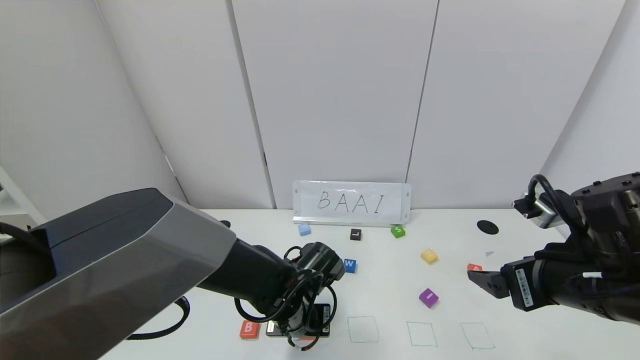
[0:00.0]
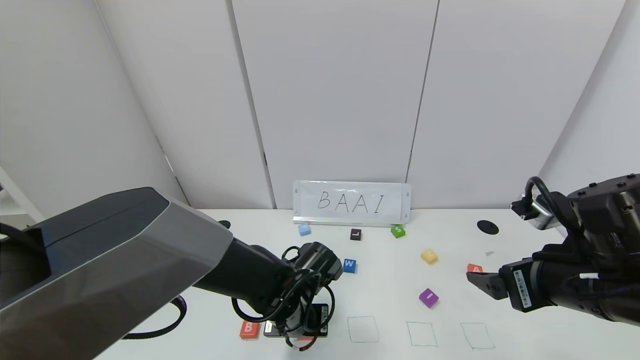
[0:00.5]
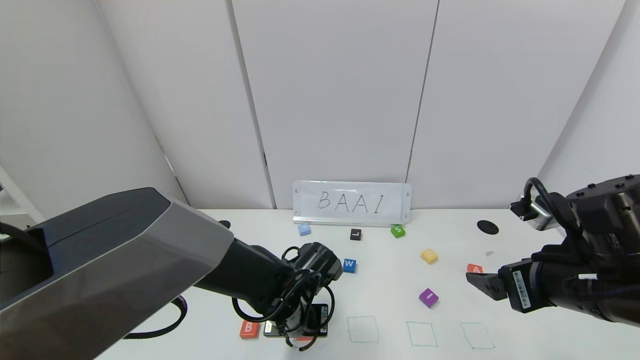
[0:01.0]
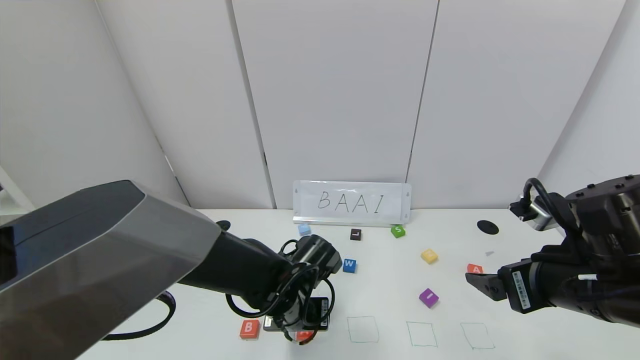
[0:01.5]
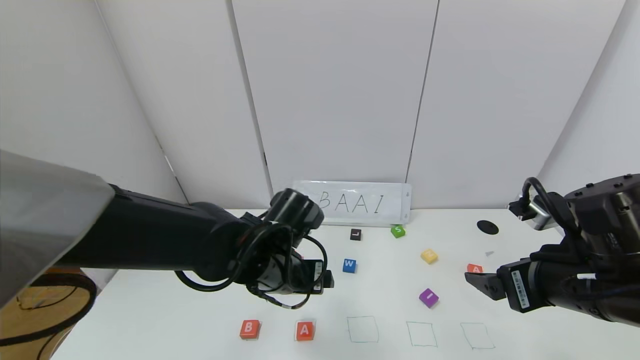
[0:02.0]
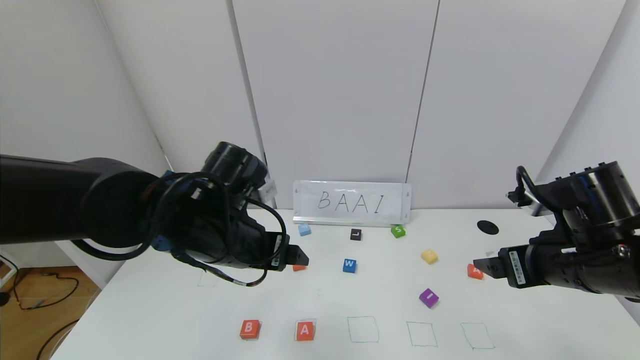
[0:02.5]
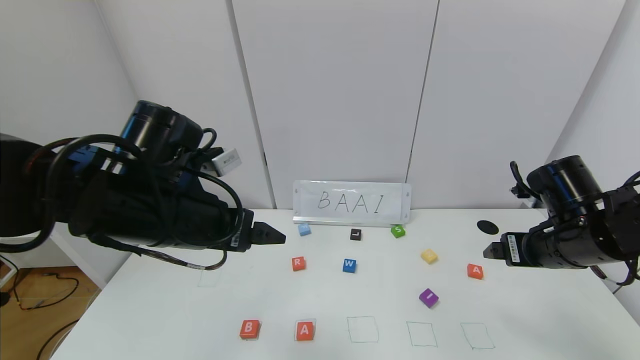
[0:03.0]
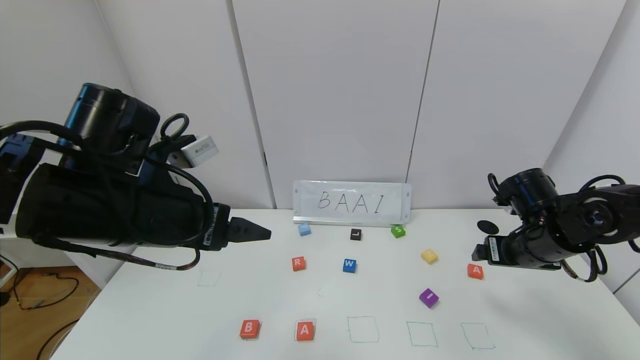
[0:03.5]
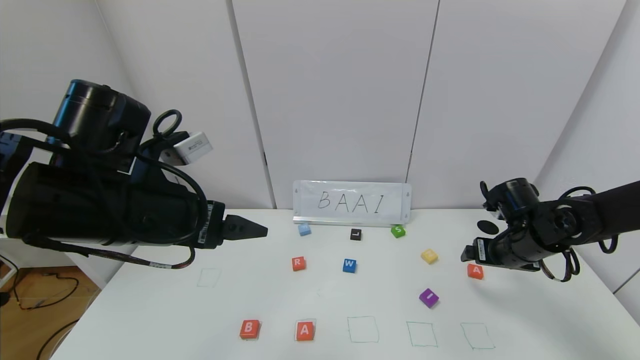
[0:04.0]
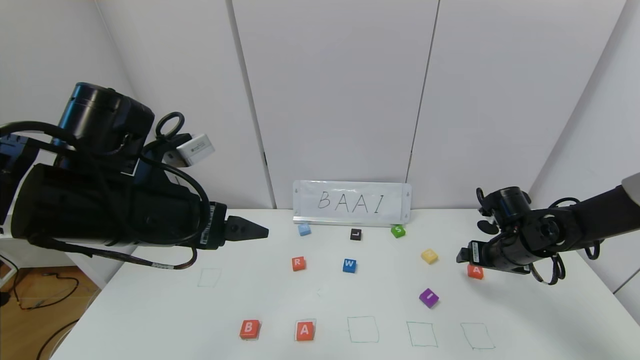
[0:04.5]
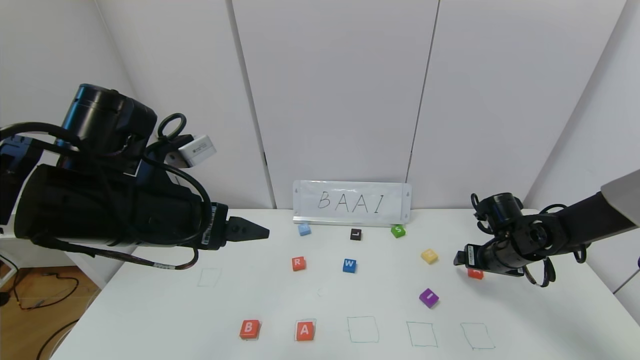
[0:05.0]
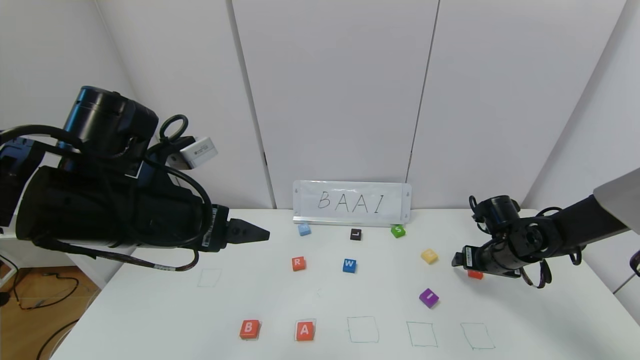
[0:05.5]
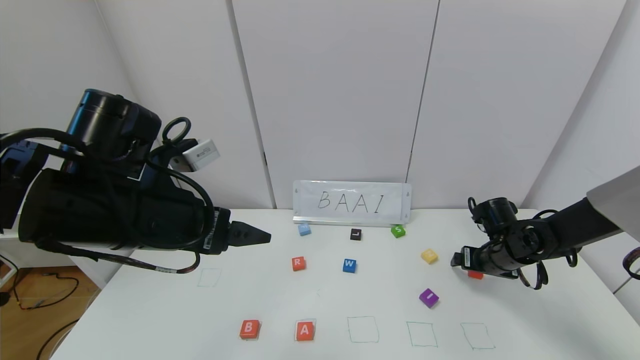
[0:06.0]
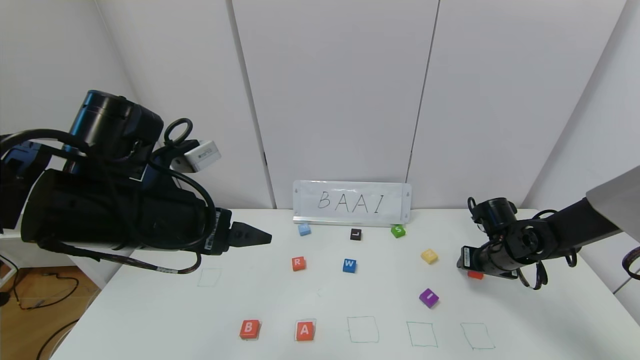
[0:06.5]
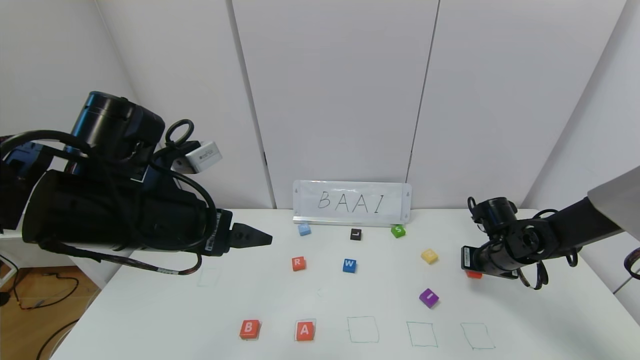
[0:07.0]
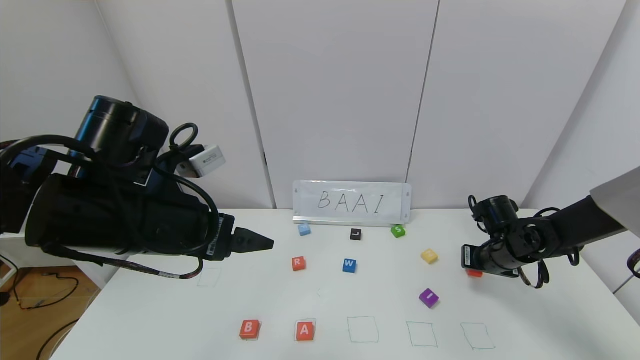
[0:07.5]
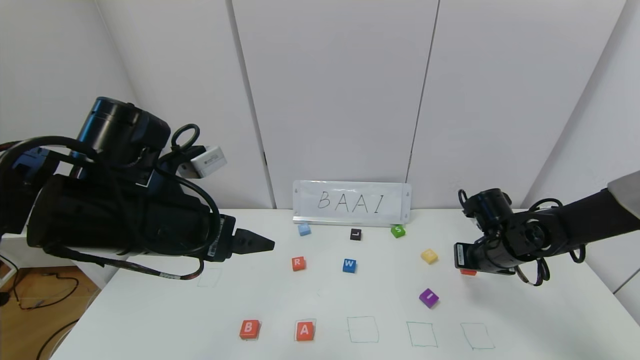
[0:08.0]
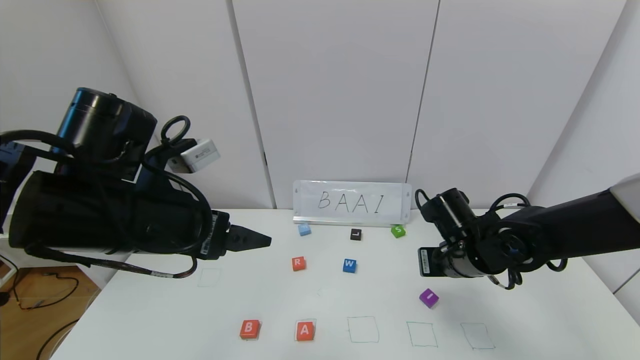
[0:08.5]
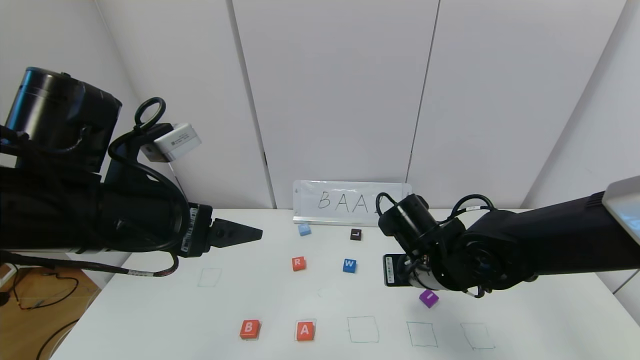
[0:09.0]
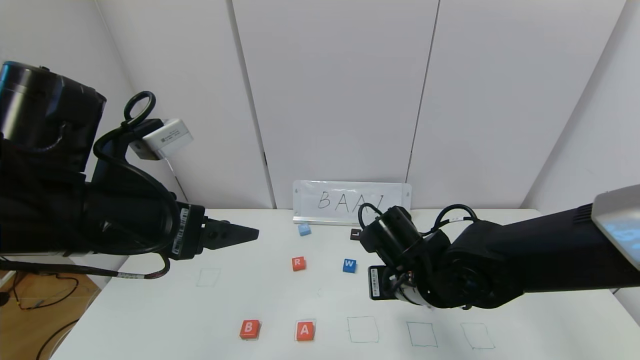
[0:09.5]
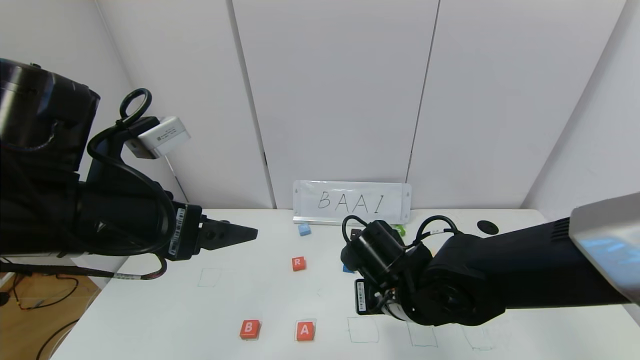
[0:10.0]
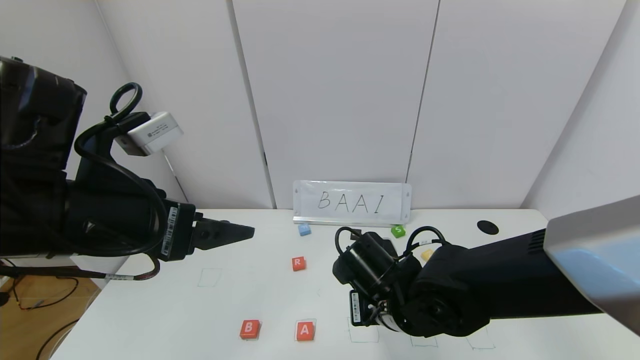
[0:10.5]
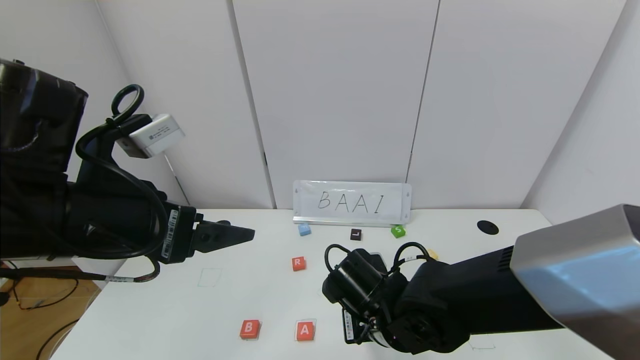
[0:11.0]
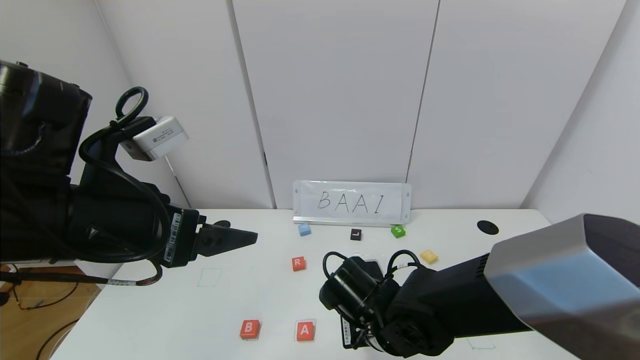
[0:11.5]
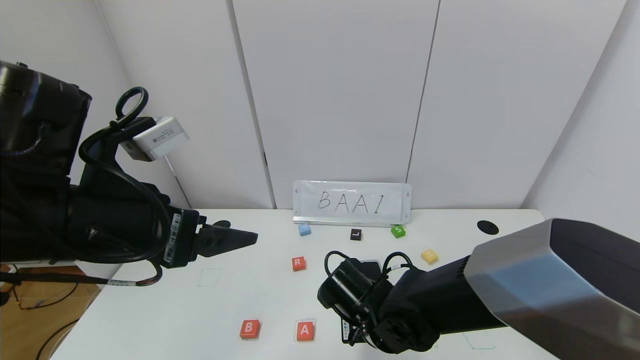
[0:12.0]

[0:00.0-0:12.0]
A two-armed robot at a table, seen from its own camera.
Task of the whole recording: use the gripper to find blocks with the letters b, a, a, and i on the table and arrange them into BAAI, then find r and N and turn the arranged baai into brian.
0:00.0 to 0:02.0: The left gripper goes some 10 cm upward, and opens up.
0:02.0 to 0:04.0: The right gripper travels forward and downward by approximately 20 cm. Meanwhile the left gripper goes some 15 cm upward and to the left.
0:04.0 to 0:06.0: The right gripper moves downward, approximately 5 cm.
0:06.0 to 0:08.0: The right gripper ends up roughly 5 cm from where it was, and closes its fingers.
0:08.0 to 0:10.0: The right gripper heads to the left and backward, covering some 20 cm.
0:10.0 to 0:12.0: The right gripper goes some 5 cm downward.

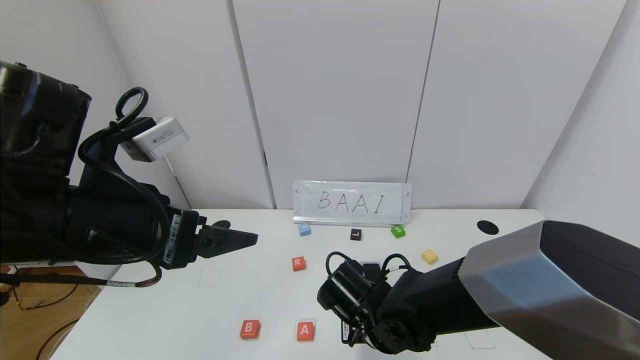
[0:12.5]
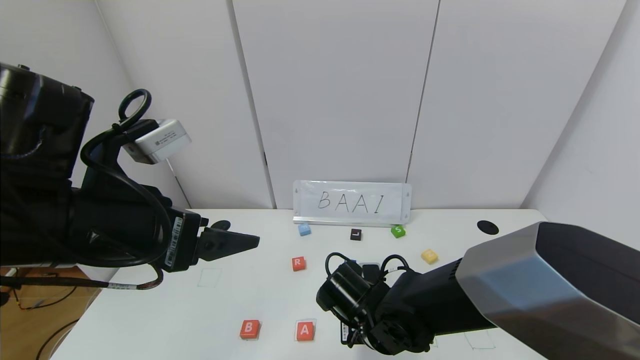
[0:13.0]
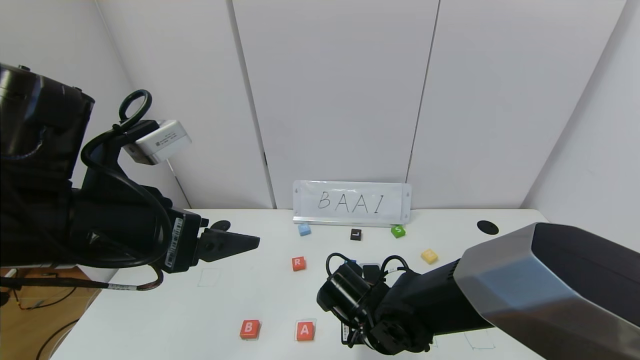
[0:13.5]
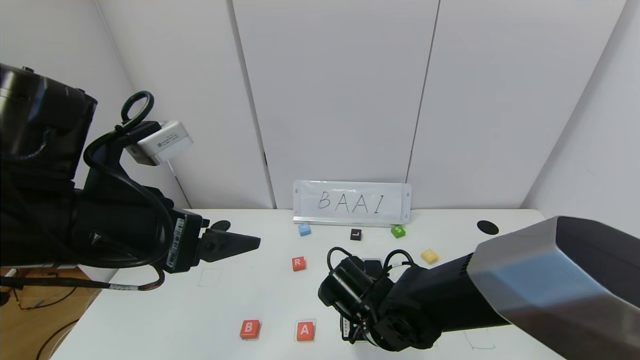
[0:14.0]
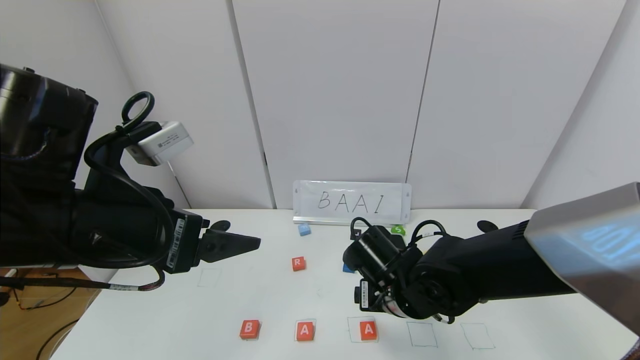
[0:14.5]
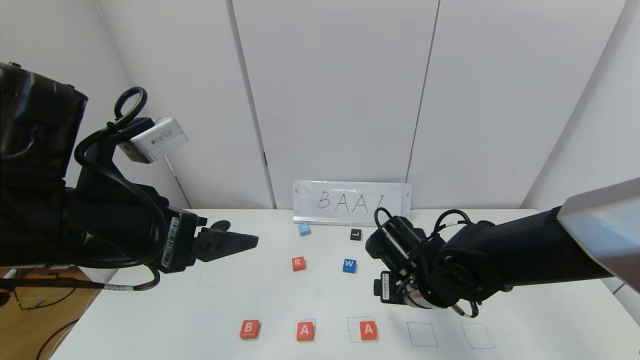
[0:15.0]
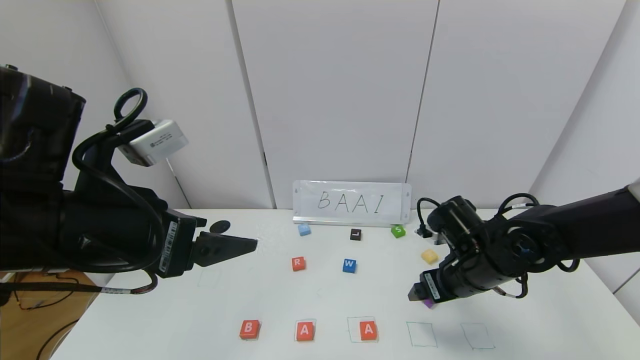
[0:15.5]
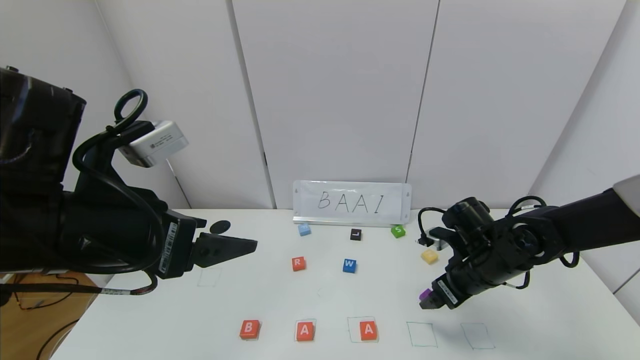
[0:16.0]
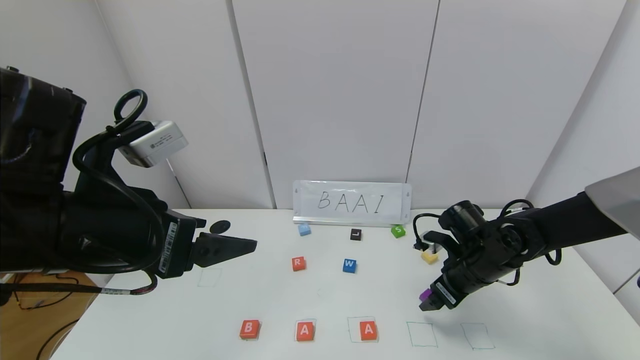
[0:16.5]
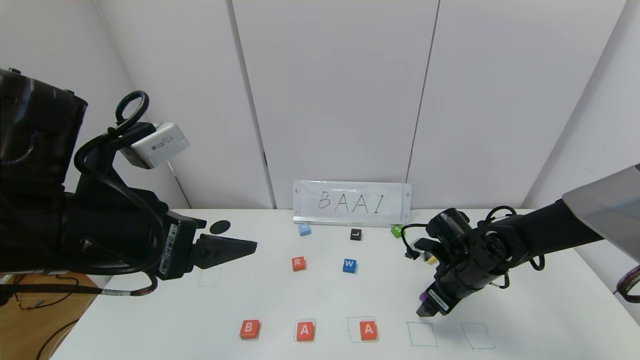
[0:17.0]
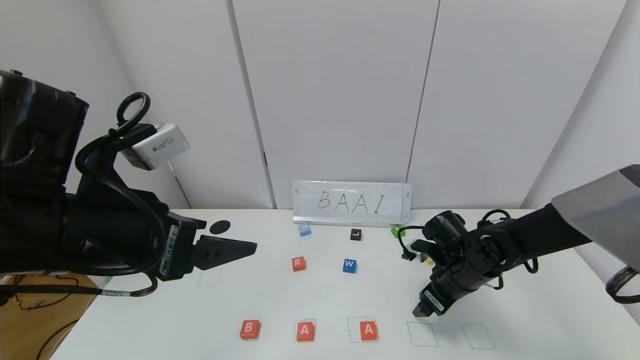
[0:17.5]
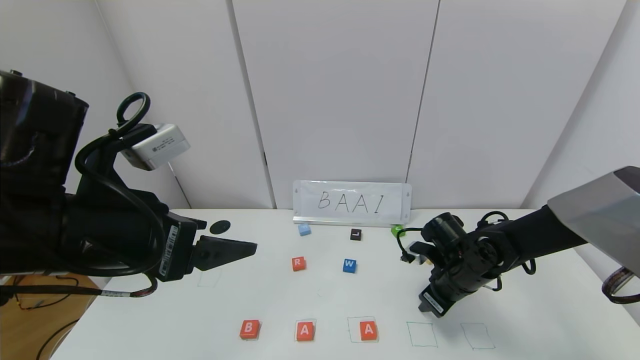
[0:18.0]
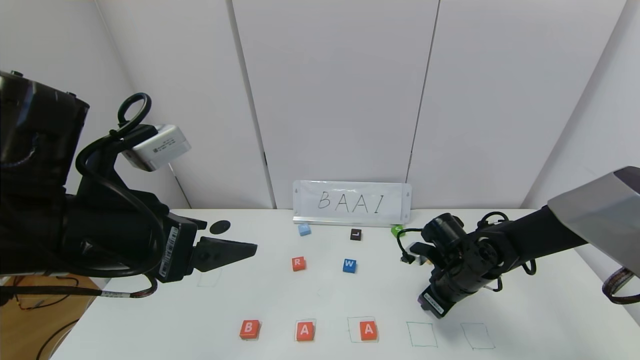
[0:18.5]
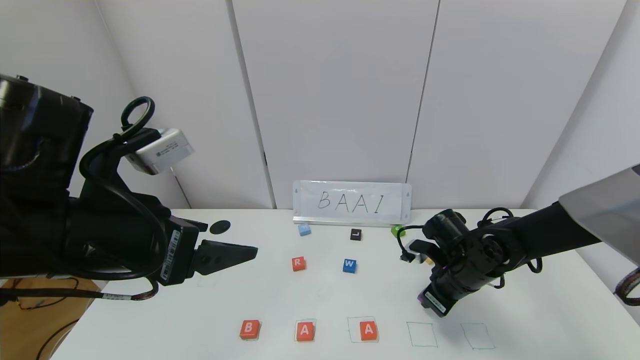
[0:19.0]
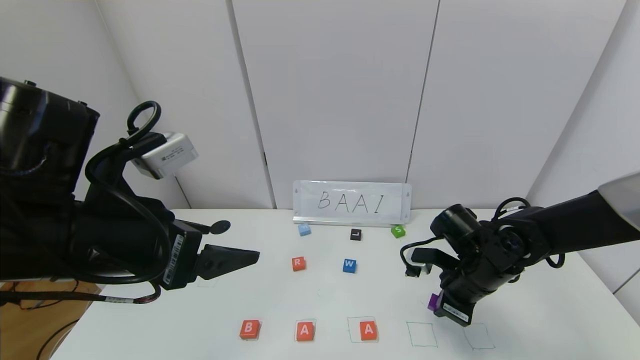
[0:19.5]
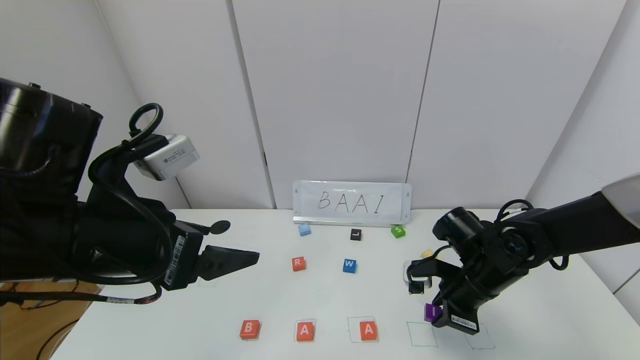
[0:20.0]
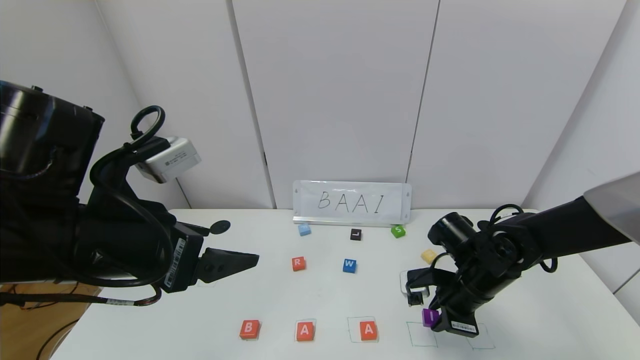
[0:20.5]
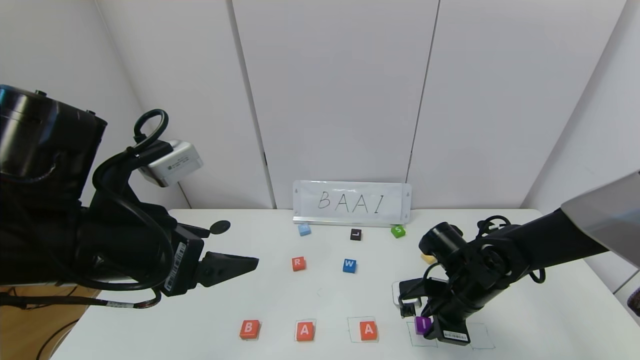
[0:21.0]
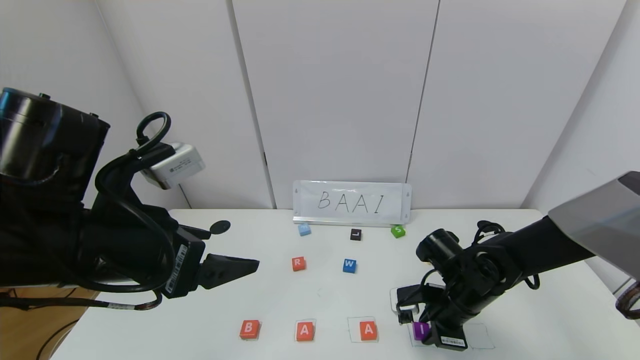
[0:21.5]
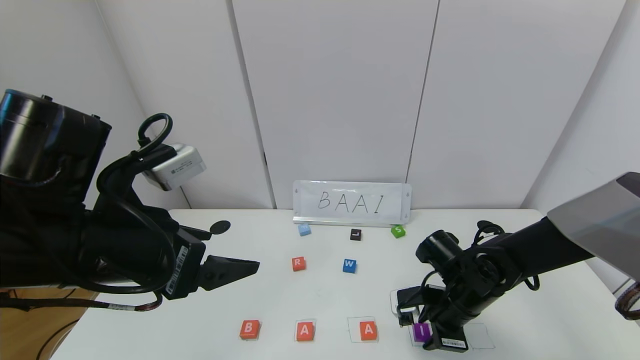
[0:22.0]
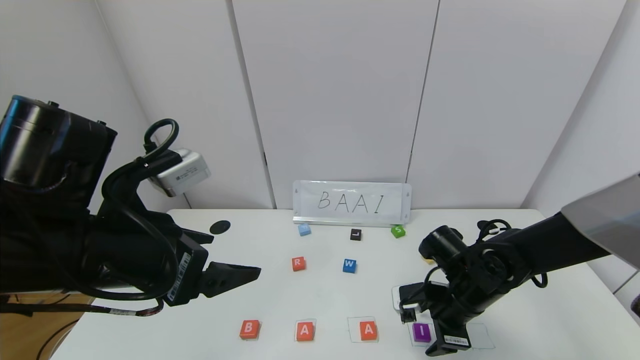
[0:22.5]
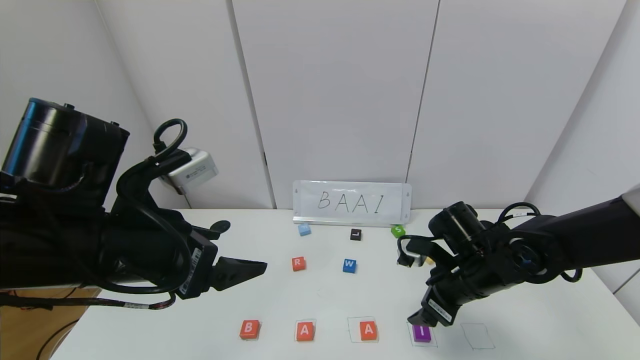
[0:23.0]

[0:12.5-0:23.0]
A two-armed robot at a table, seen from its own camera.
Task of the whole recording: use the gripper to find blocks with the letters b, a, a, and i on the table and arrange them into BAAI, then find r and N and turn the arranged baai into brian.
Step, 0:14.5 to 0:22.5: Place the block I in the fourth location.
0:12.5 to 0:14.5: The right gripper moves some 5 cm, and opens its fingers.
0:14.5 to 0:16.5: The right gripper travels to the right and forward by approximately 15 cm.
0:16.5 to 0:19.0: The right gripper closes up.
0:21.0 to 0:23.0: The right gripper opens.
